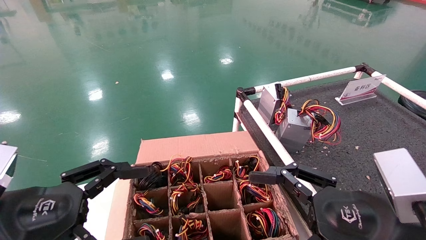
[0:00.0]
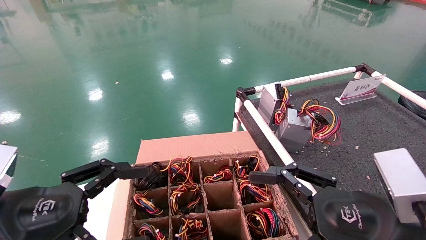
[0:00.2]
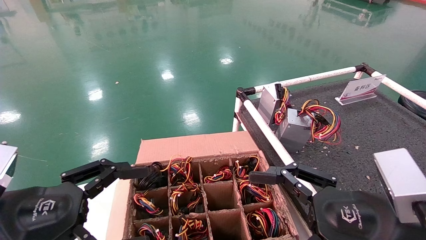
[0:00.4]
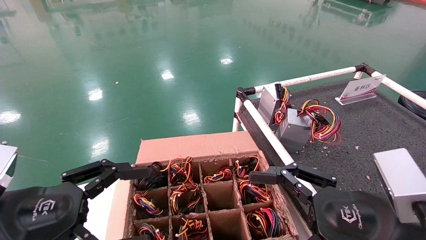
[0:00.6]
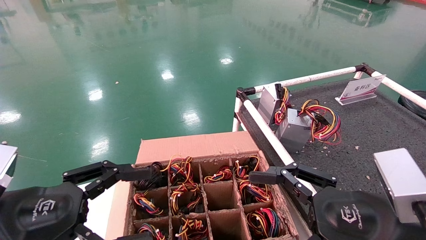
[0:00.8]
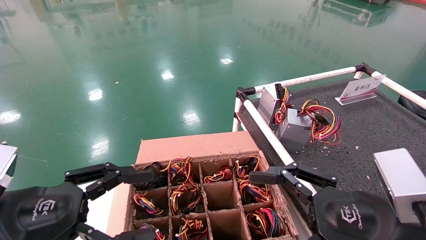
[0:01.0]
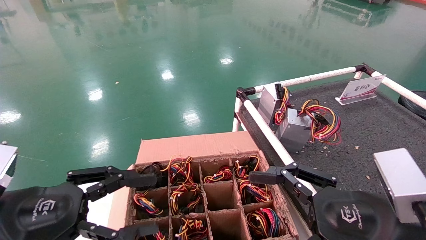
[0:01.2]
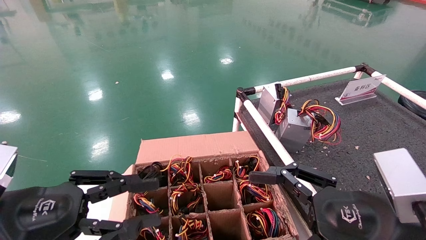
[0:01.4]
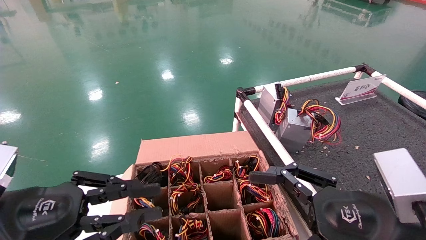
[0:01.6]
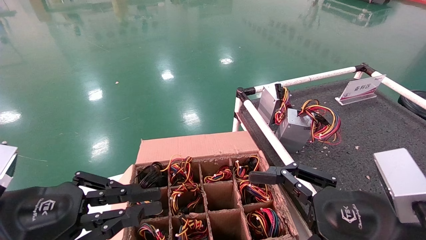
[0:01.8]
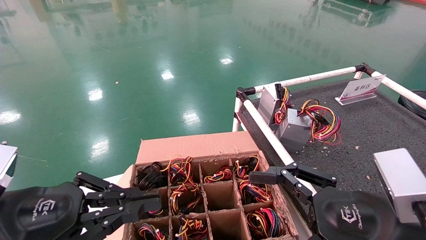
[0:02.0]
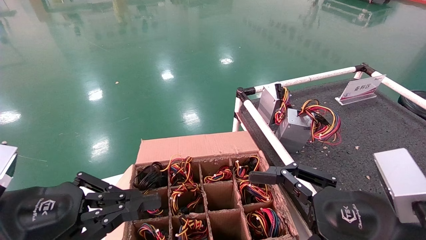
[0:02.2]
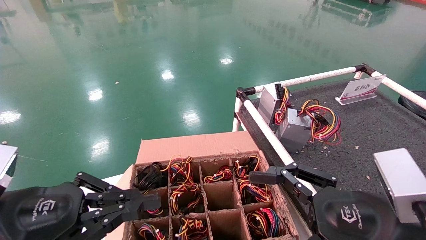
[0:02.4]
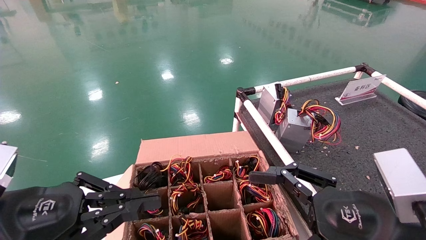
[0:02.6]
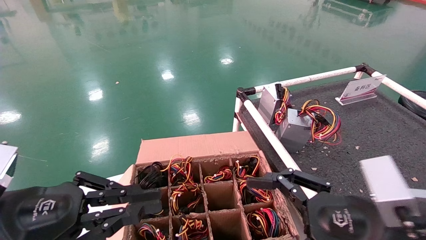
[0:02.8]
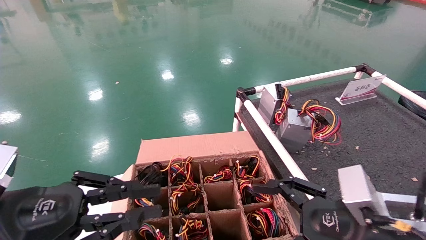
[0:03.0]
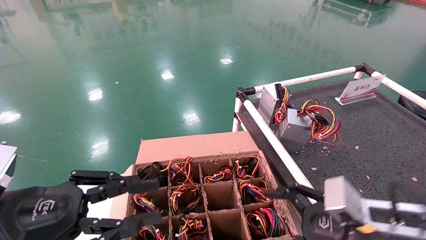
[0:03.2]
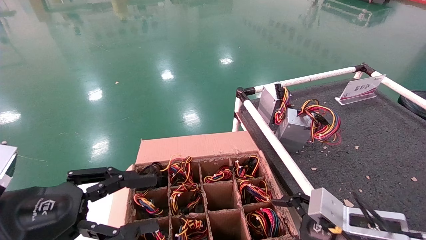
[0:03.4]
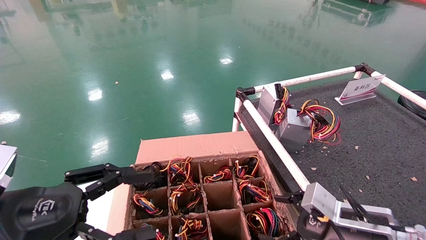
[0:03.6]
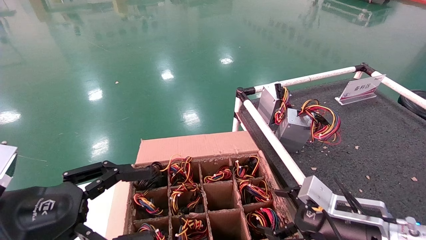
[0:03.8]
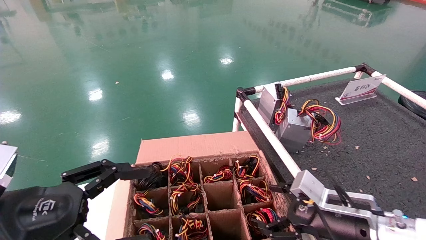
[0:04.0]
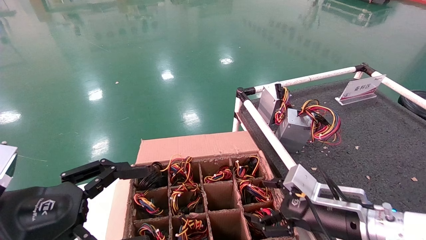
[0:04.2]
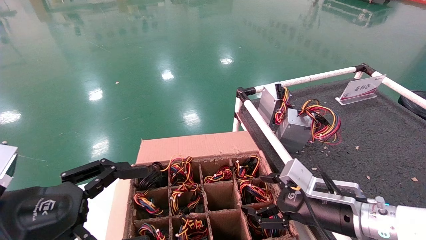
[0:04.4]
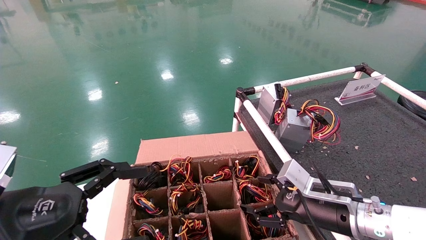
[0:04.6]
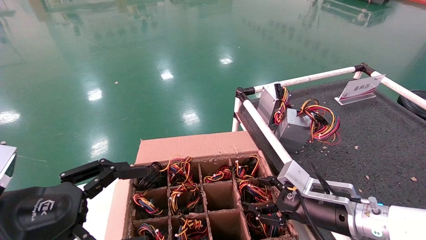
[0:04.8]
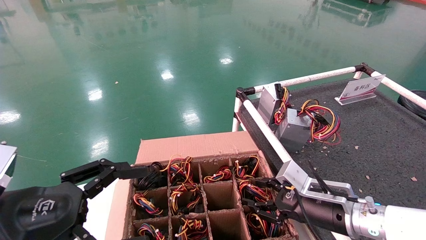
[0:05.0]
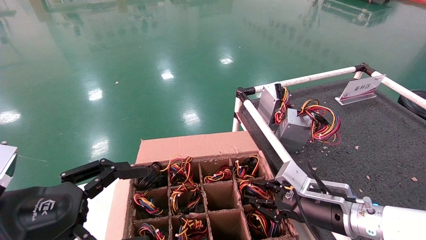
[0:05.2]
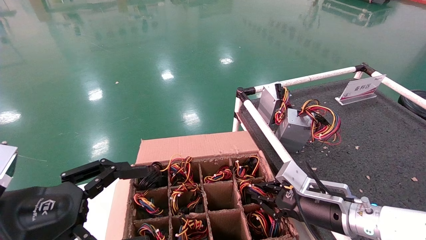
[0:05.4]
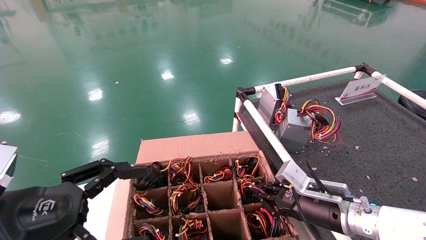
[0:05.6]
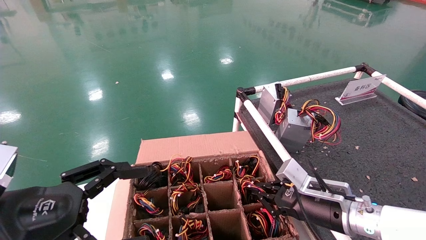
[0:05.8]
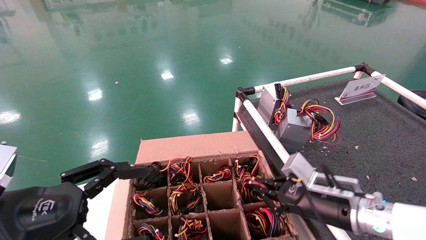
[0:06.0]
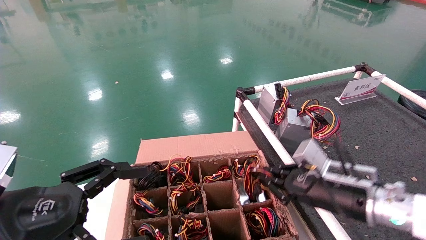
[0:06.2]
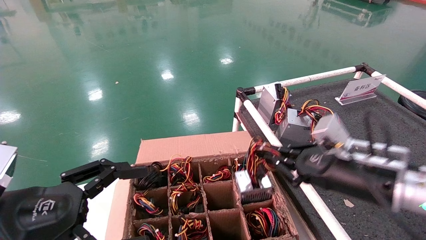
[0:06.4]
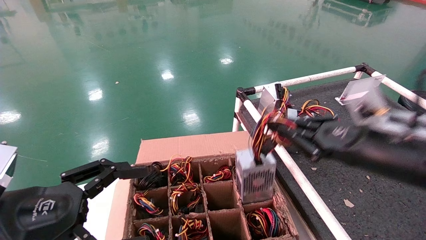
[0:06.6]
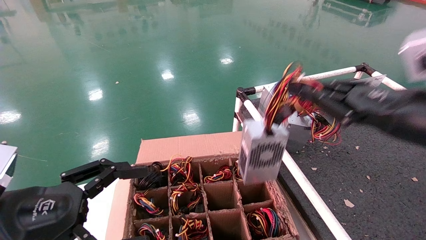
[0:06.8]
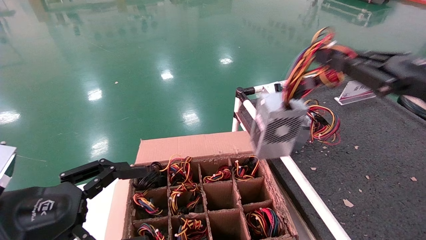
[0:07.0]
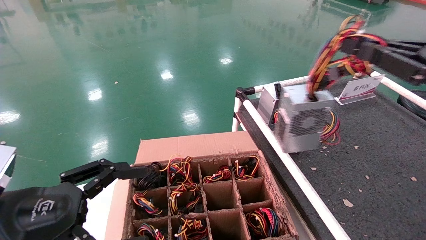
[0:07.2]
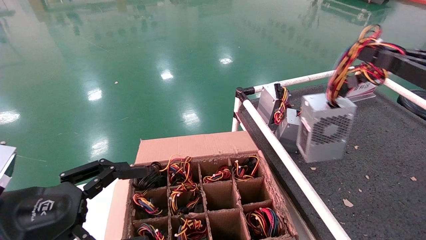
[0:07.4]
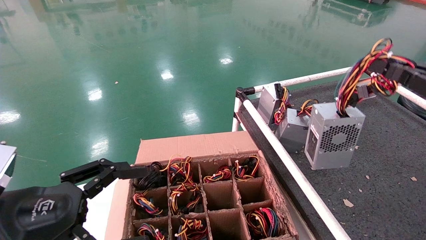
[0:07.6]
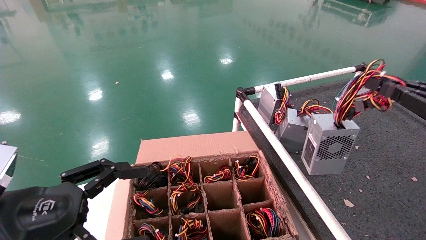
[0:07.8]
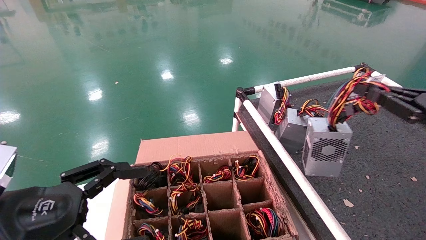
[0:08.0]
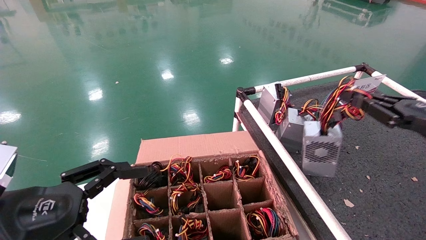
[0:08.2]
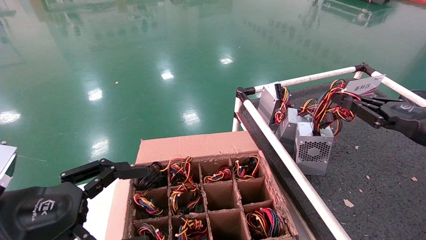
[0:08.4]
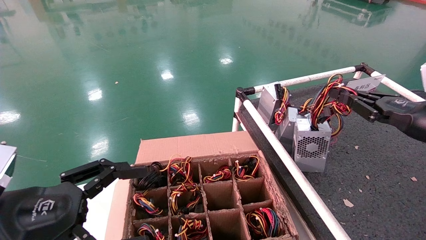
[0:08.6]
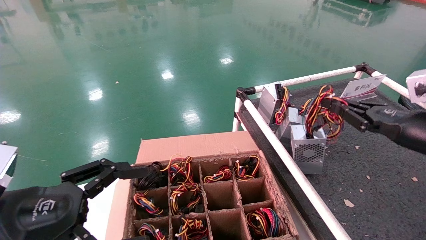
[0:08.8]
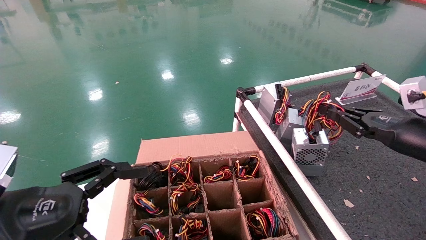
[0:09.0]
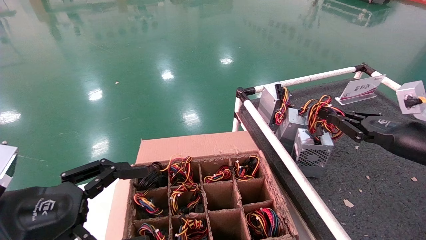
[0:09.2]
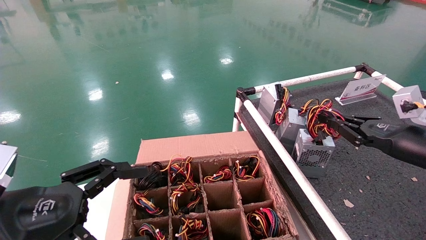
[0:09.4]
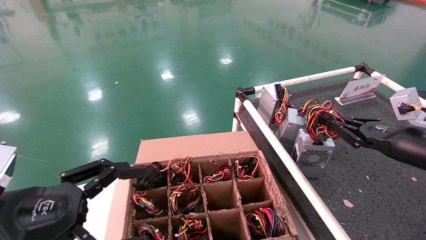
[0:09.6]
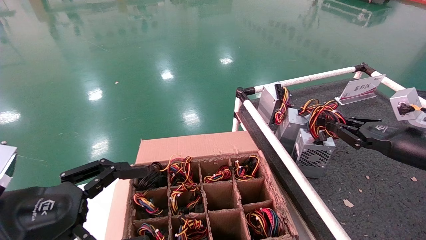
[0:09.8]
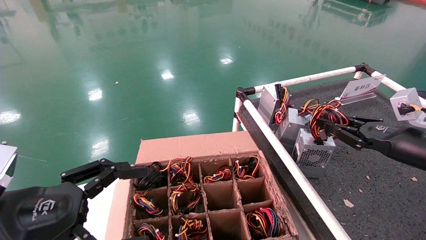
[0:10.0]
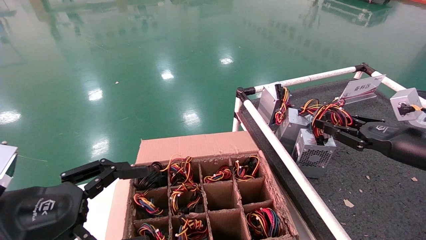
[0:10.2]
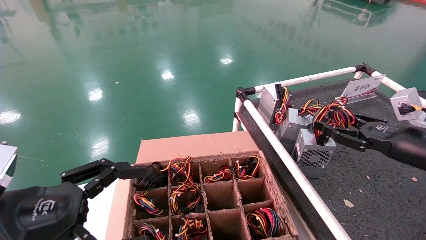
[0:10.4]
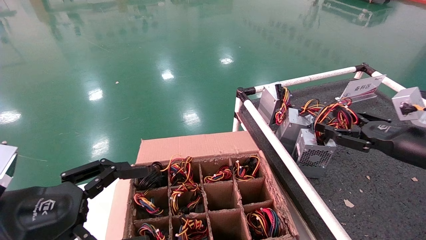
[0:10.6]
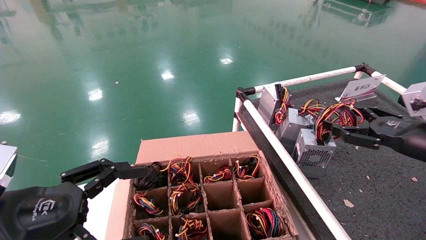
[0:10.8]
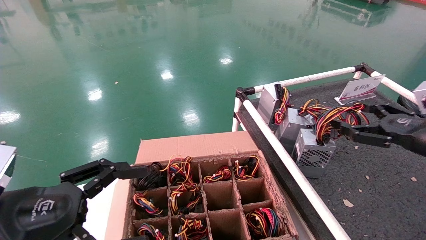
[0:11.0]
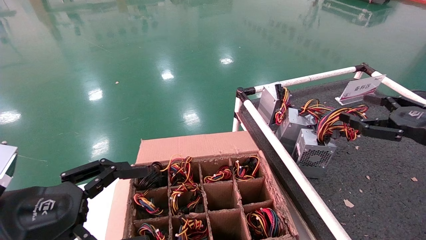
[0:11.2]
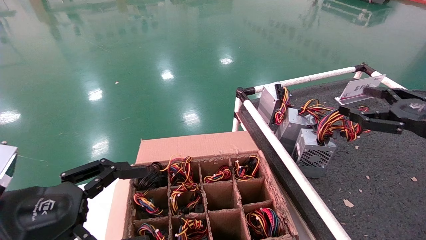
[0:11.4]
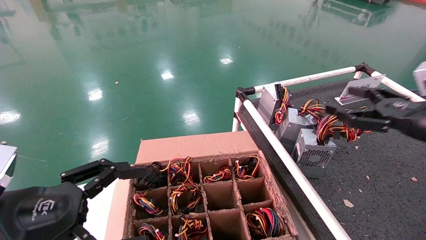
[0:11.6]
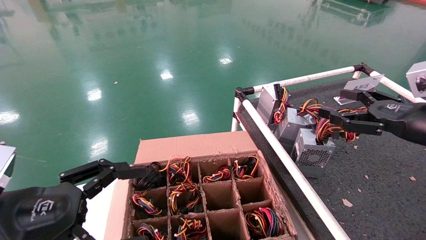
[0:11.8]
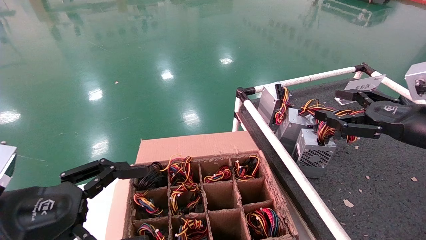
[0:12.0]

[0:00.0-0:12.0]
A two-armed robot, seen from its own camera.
Step, 0:03.2 to 0:06.0: Grab and lift the power supply from the large box.
Step, 0:06.2 to 0:10.4: Place the power supply on the operating table.
0:00.0 to 0:01.6: The left gripper closes.
0:01.6 to 0:03.0: The grippers make only small movements.
0:03.0 to 0:04.4: The left gripper opens; the right gripper moves forward, roughly 10 cm.
0:04.4 to 0:06.0: The right gripper closes up.
0:06.0 to 0:07.6: The right gripper heads to the right, upward and backward, covering approximately 25 cm.
0:07.6 to 0:09.0: The right gripper heads forward and downward, covering approximately 15 cm.
0:09.0 to 0:10.4: The right gripper opens.
0:10.4 to 0:12.0: The right gripper moves roughly 5 cm, and opens its fingers.

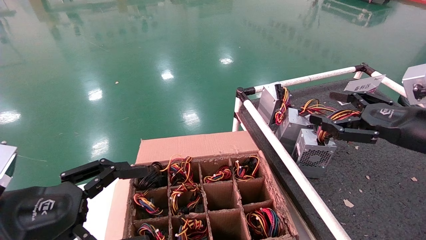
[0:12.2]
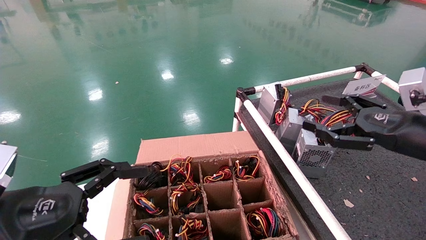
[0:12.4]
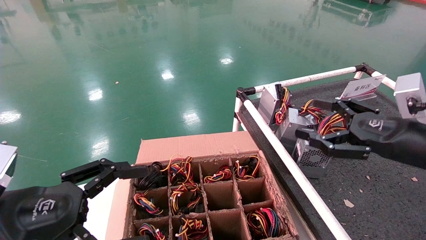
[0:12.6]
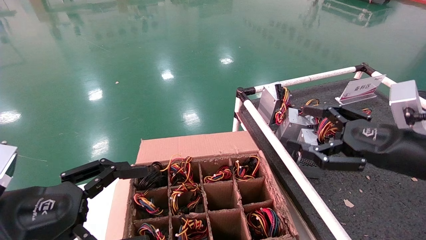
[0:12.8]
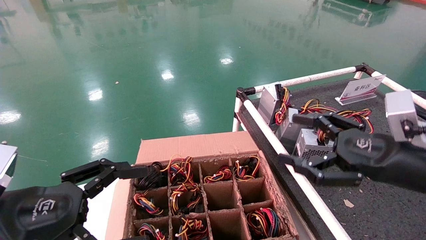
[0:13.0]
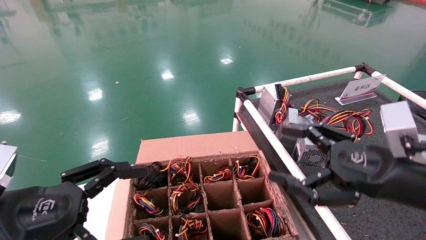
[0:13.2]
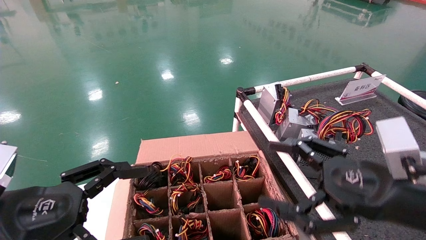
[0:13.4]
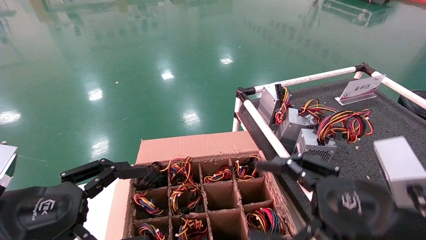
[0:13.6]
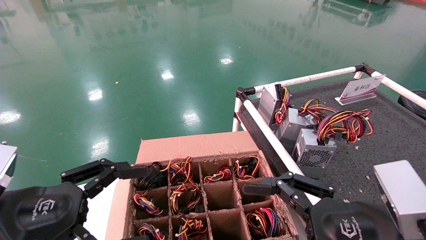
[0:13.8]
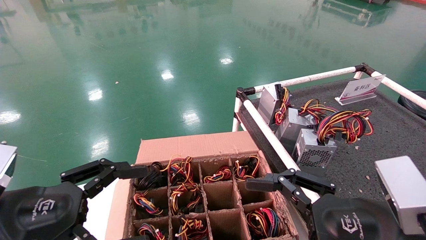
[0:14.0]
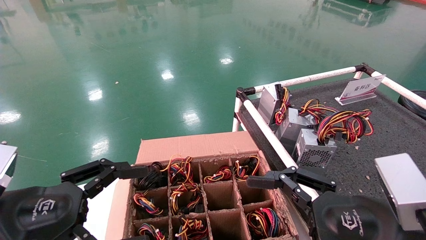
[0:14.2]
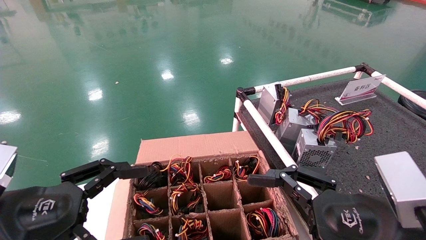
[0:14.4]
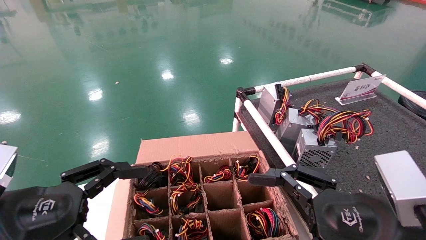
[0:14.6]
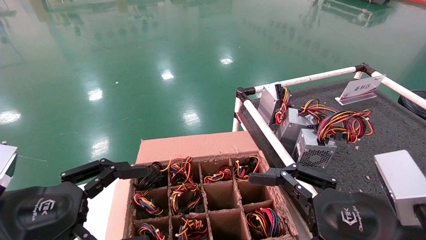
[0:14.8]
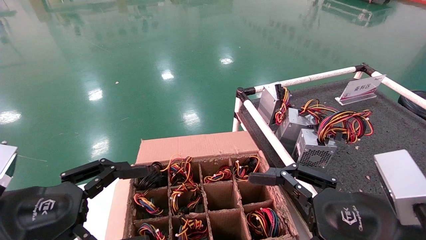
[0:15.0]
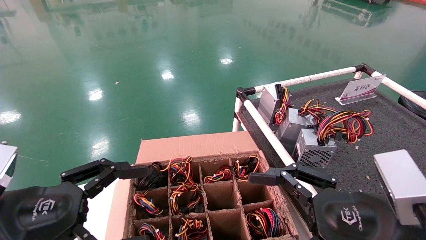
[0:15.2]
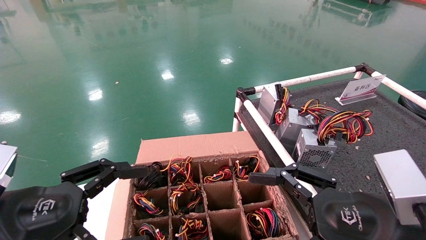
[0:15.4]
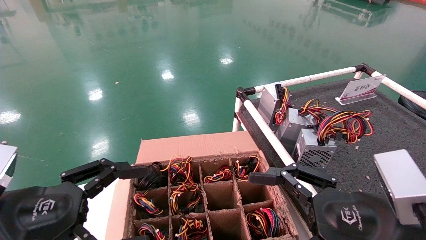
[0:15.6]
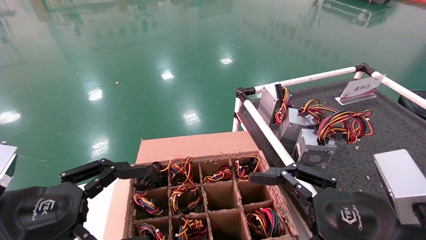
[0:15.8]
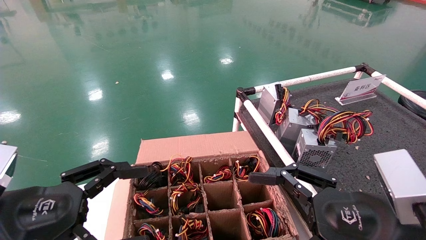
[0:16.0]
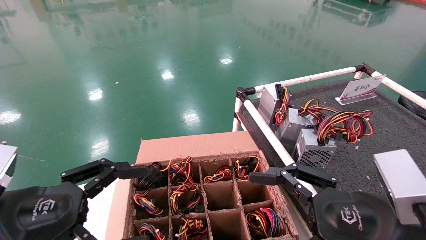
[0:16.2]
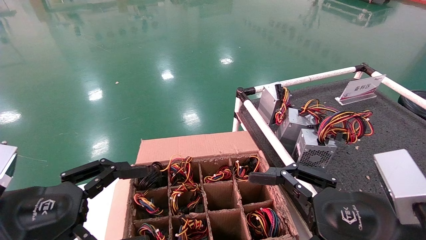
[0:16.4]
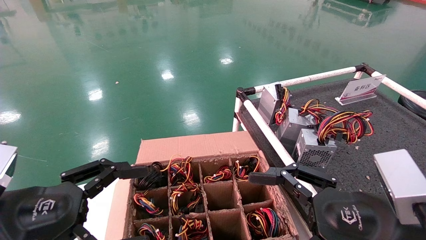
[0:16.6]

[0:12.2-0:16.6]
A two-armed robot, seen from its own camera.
0:12.2 to 0:13.6: The right gripper travels to the left, backward and downward by approximately 15 cm.
0:13.6 to 0:15.2: There are only small adjustments of the grippers.
0:15.2 to 0:16.6: Both grippers stay about where they are.
